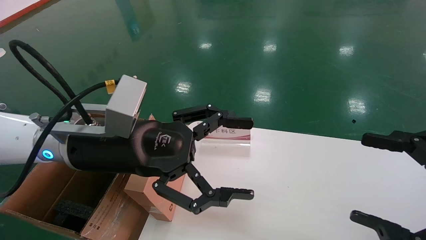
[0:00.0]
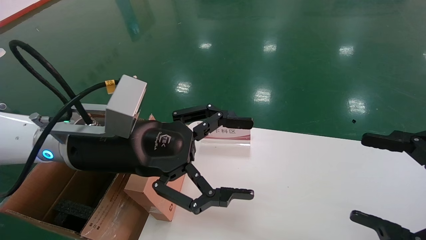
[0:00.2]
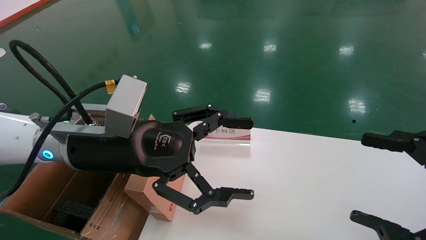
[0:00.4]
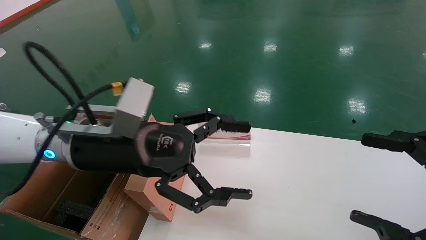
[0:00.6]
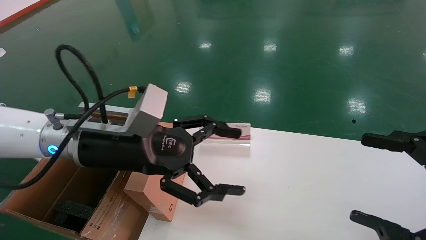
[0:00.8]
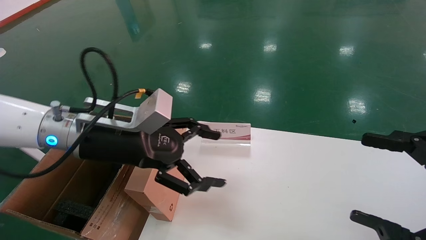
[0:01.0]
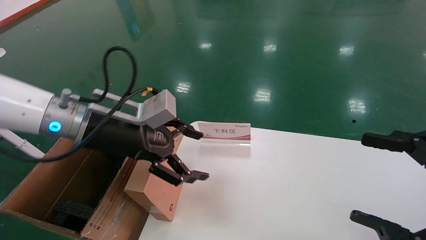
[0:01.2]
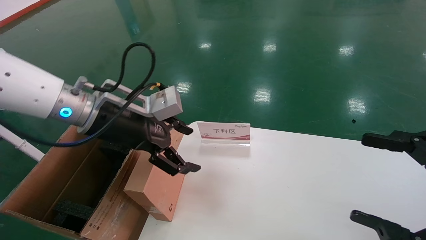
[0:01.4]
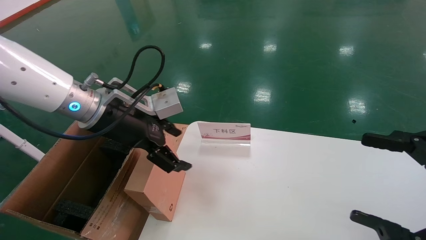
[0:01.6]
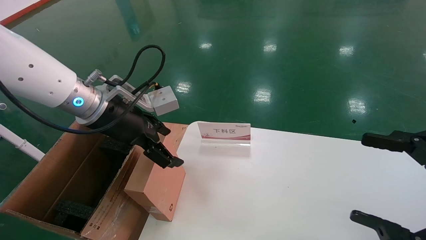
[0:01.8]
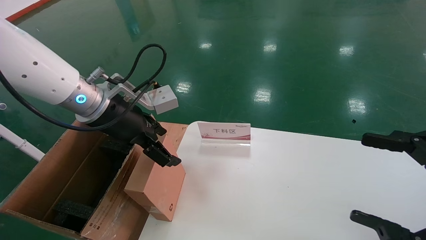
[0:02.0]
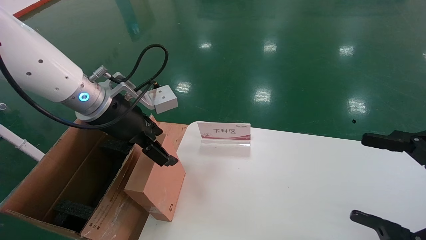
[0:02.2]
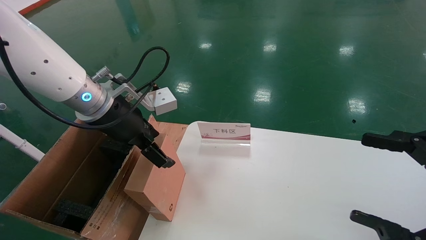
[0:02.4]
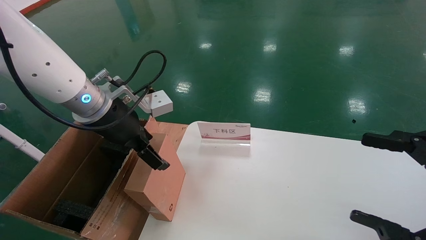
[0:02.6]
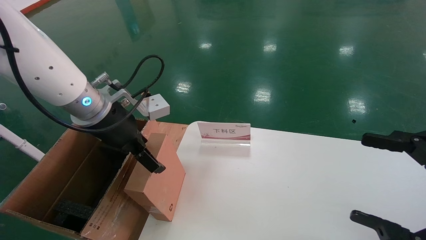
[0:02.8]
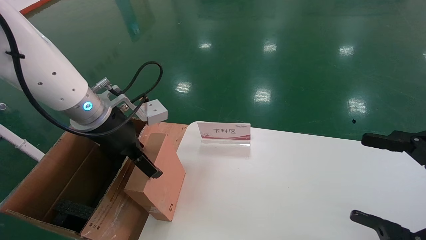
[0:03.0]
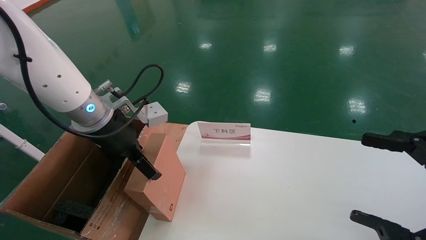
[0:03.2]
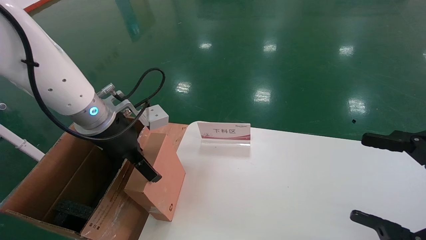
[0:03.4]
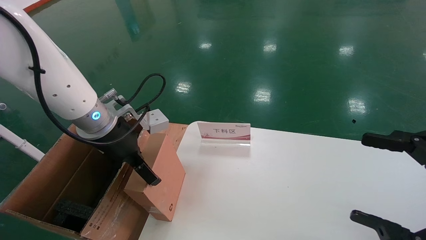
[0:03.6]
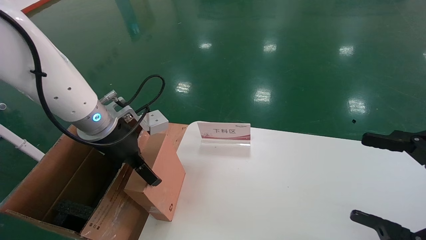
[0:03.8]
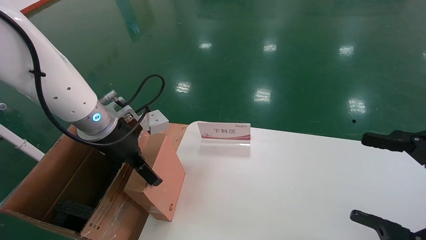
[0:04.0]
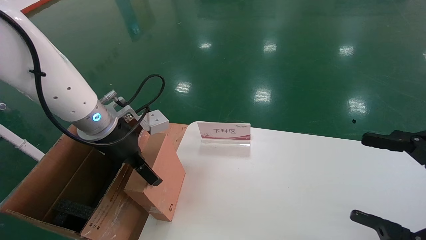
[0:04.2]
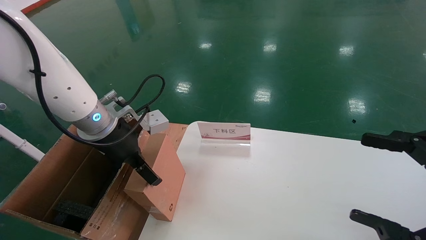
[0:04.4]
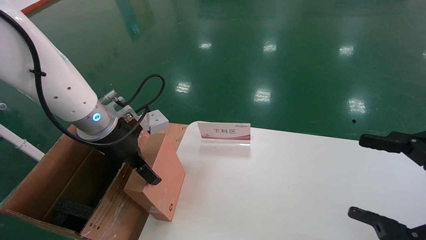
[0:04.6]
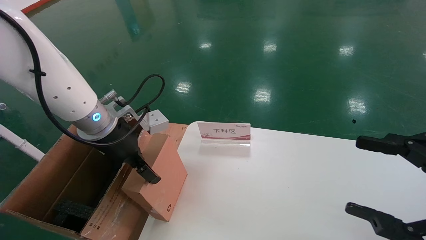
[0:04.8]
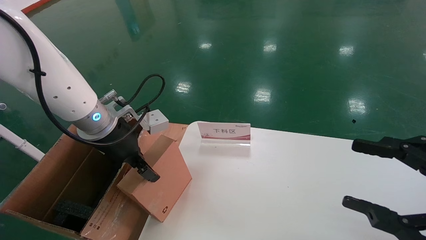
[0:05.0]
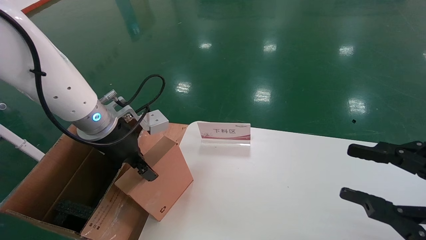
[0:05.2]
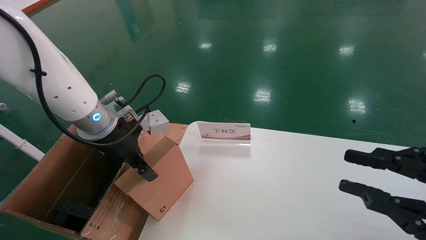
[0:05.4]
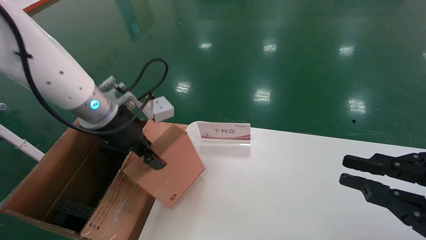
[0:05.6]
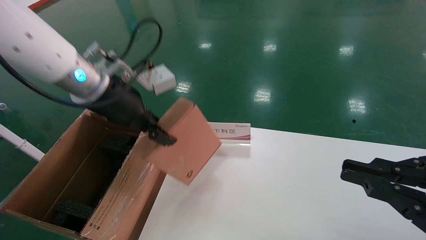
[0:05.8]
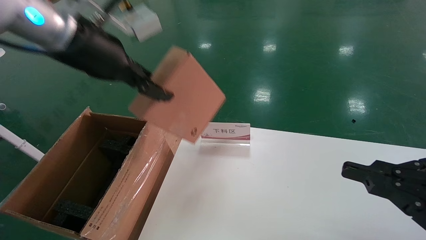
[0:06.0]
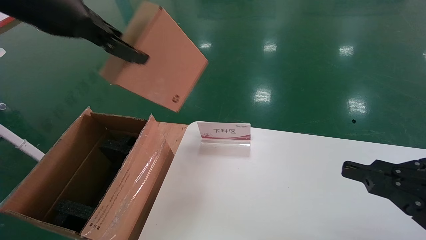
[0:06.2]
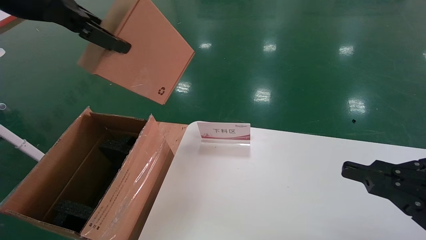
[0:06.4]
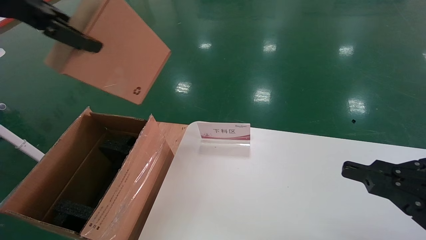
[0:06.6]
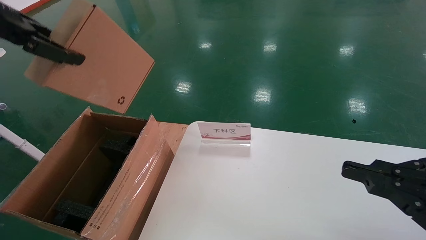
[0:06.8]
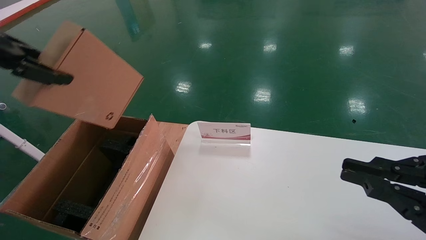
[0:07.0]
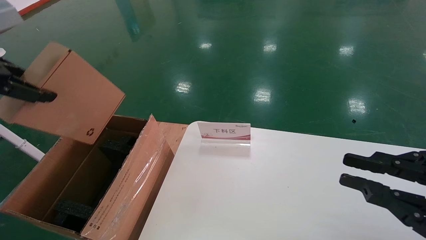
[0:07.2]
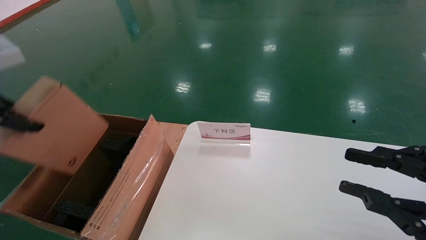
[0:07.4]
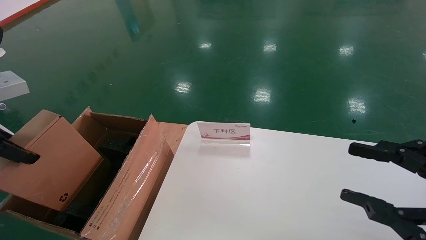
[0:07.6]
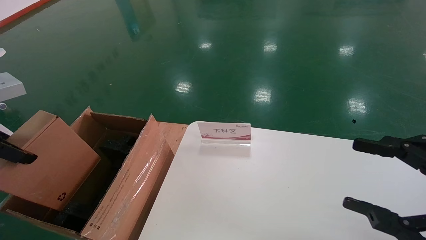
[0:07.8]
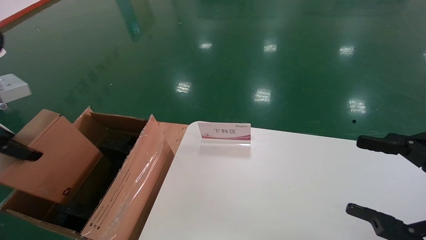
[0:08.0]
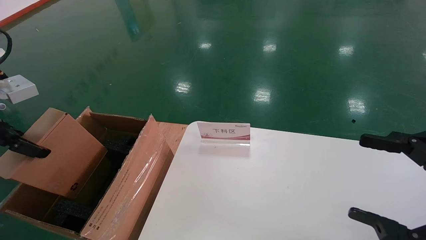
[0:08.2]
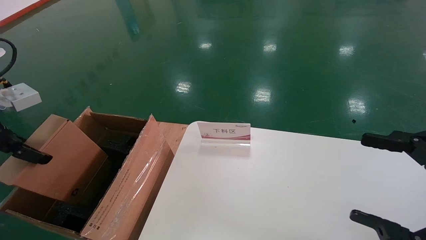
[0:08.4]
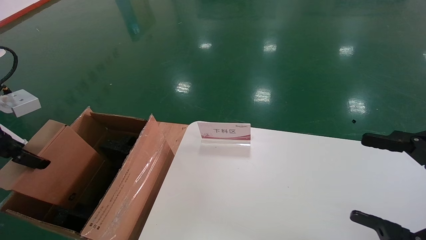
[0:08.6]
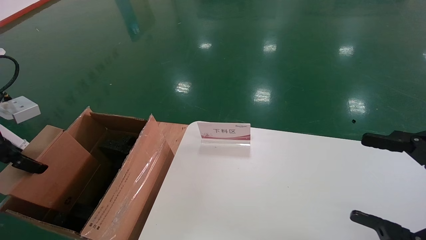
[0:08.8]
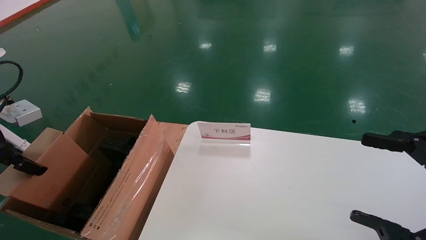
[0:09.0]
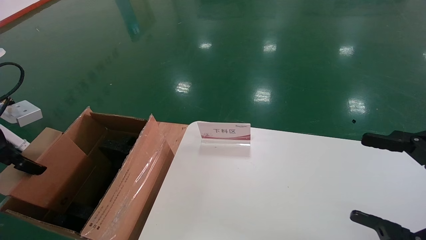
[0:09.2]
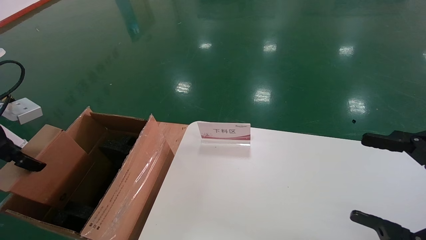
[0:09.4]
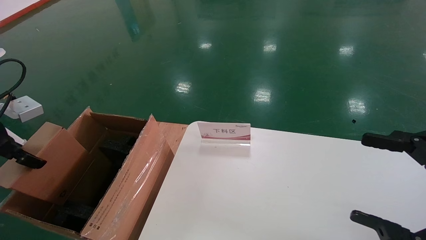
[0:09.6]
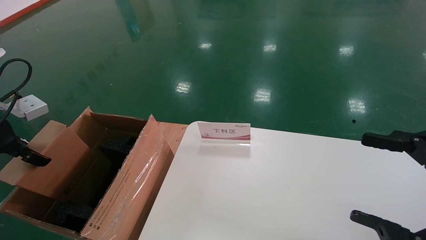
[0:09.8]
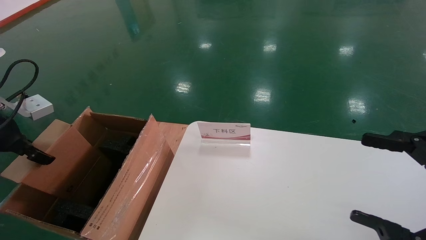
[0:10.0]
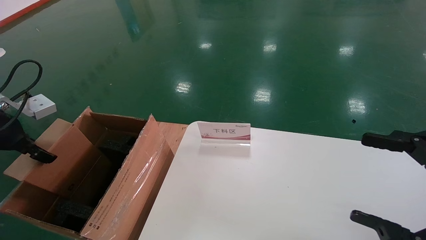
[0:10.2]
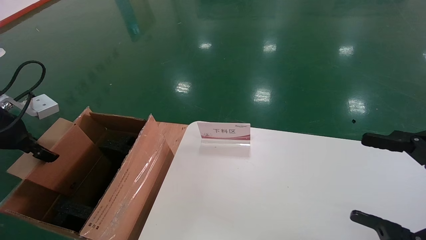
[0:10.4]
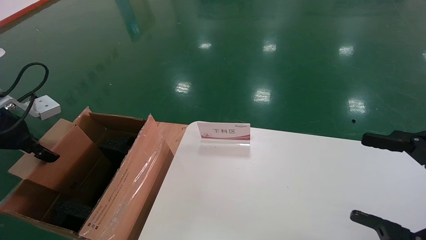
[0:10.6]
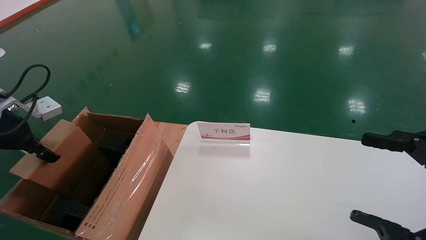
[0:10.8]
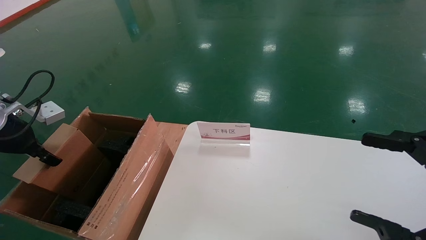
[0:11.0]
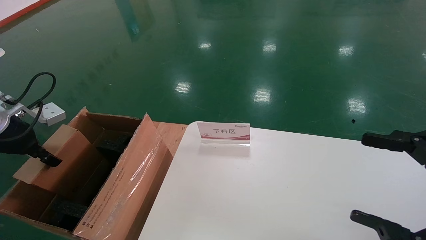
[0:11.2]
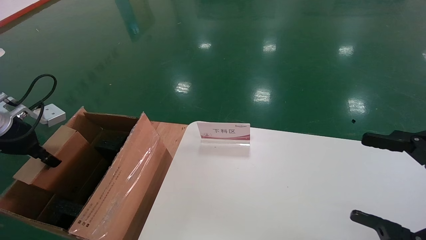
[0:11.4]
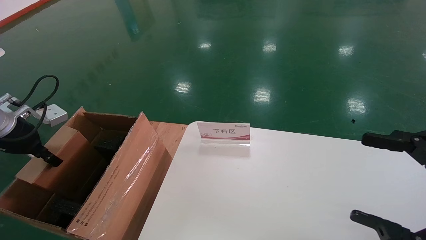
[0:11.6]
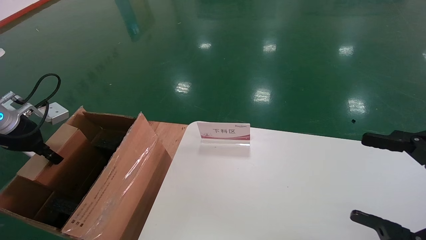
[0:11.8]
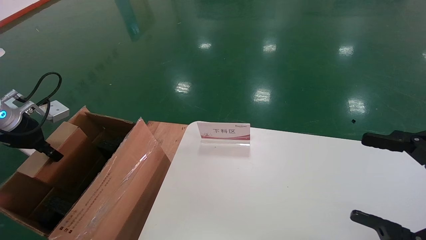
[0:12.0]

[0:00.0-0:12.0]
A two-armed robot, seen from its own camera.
Task of the whole recording: pick up the small cardboard box and load it into the large cardboard box.
Step, 0:01.0 to 0:05.2: Pick up the mouse and power cord box.
0:00.0 to 0:01.6: The left gripper travels forward by about 5 cm.
0:03.0 to 0:04.4: The grippers move only a little.
0:04.4 to 0:06.0: The left gripper moves upward, approximately 15 cm, and closes its fingers. The right gripper closes up.
0:06.0 to 0:07.6: The left gripper travels to the left and backward by roughly 20 cm.
0:07.6 to 0:09.0: The right gripper opens its fingers. The left gripper heads downward, covering roughly 10 cm.
0:09.0 to 0:10.4: There are only small adjustments of the grippers.
0:10.4 to 0:12.0: The left gripper shifts by roughly 5 cm.

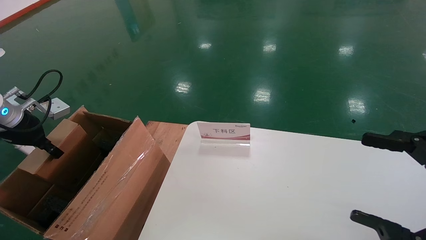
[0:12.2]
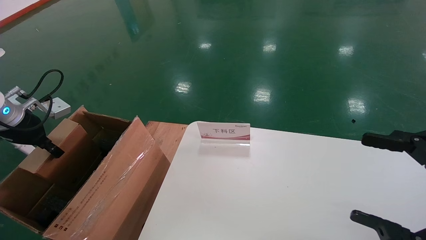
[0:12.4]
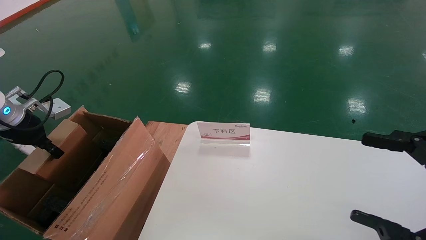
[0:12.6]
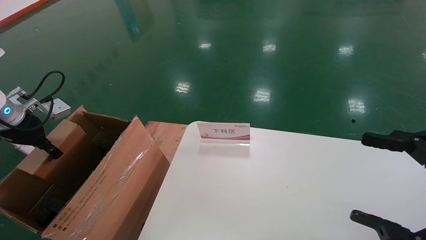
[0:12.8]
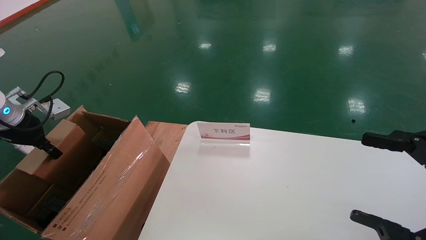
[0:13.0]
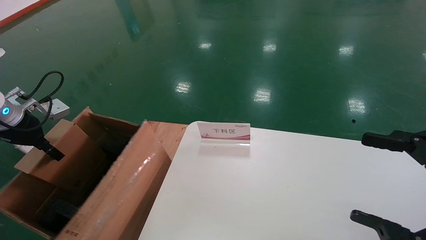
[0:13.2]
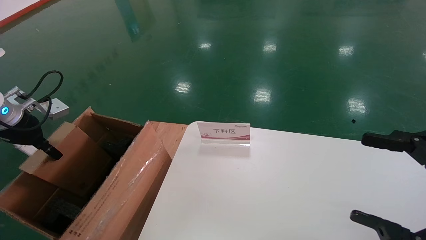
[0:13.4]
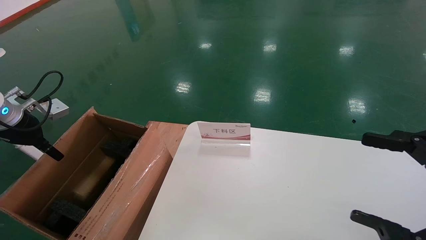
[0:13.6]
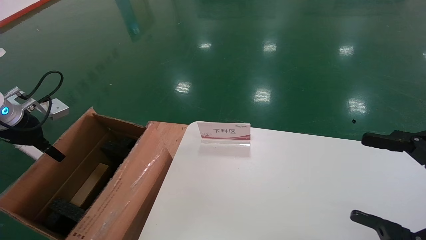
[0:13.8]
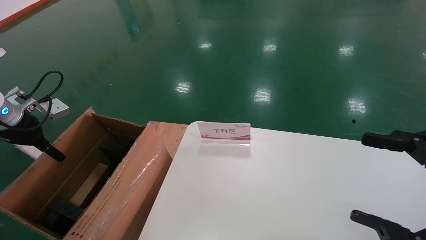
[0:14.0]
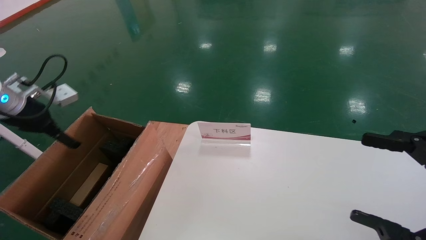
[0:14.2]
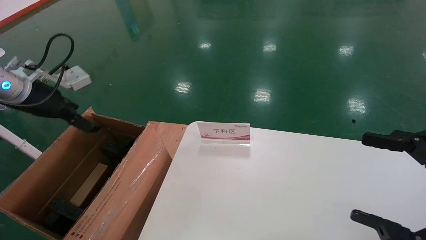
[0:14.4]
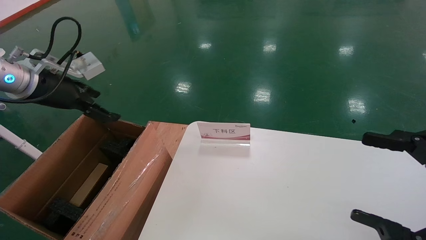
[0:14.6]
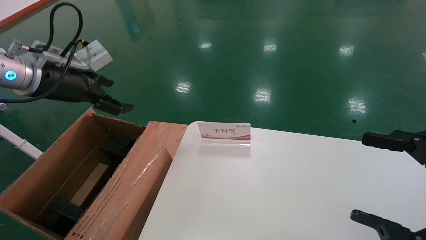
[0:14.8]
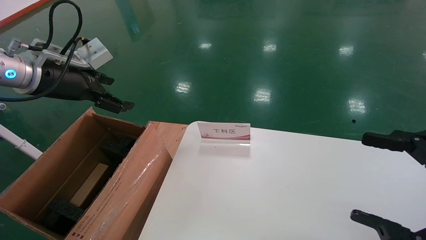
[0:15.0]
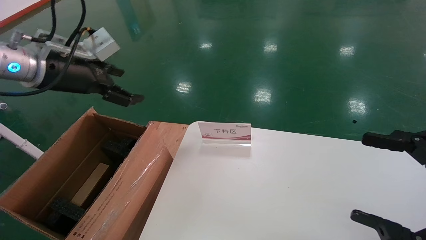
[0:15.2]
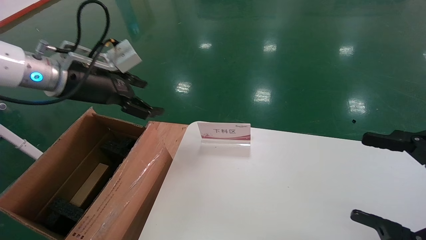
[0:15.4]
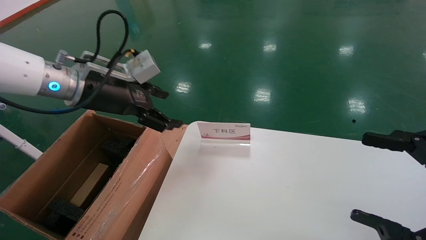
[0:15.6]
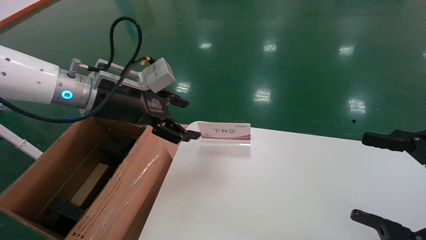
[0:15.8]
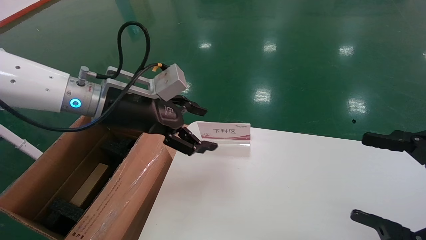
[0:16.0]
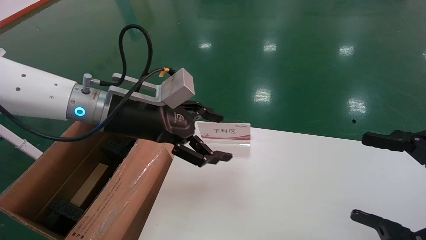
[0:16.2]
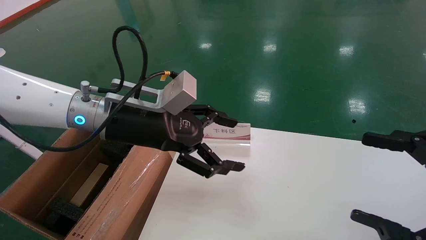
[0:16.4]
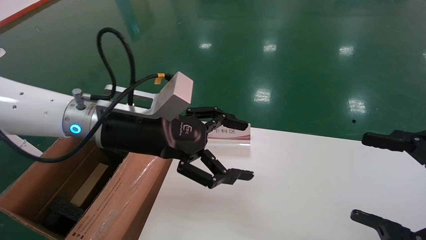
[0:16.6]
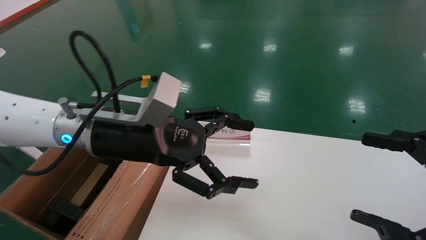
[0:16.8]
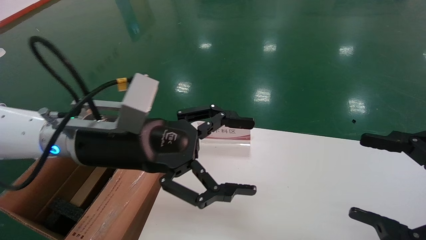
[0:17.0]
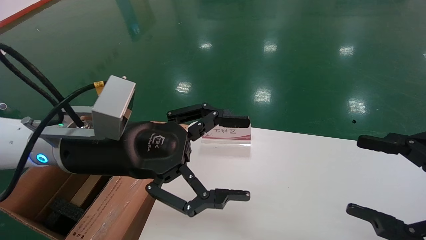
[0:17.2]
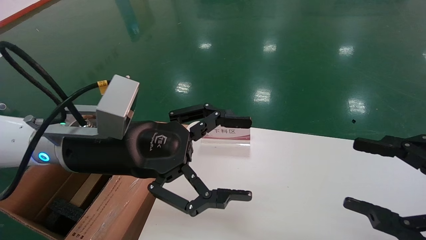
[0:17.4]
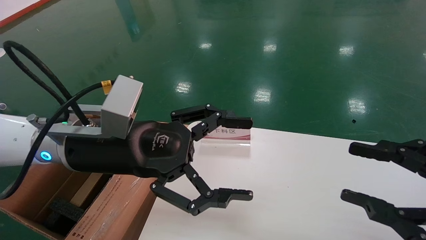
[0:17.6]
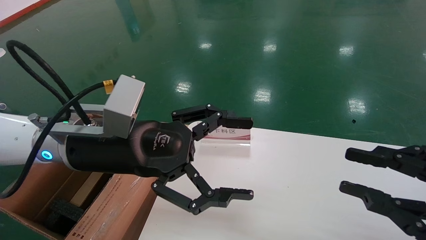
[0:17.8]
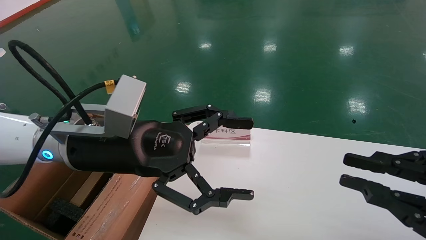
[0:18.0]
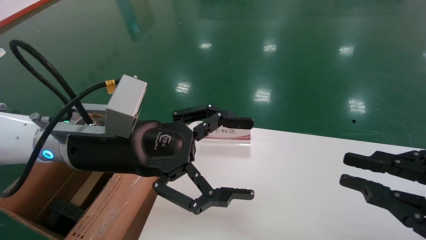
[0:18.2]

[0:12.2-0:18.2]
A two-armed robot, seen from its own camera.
Task of the whole recording: pick up the small cardboard box and load it into the large cardboard box.
0:12.2 to 0:13.8: The left gripper opens.
0:13.8 to 0:15.2: The left gripper is displaced to the right and upward by approximately 15 cm, and opens up.
0:15.2 to 0:16.6: The left gripper goes roughly 15 cm to the right.
0:16.6 to 0:18.2: The right gripper closes its fingers.
